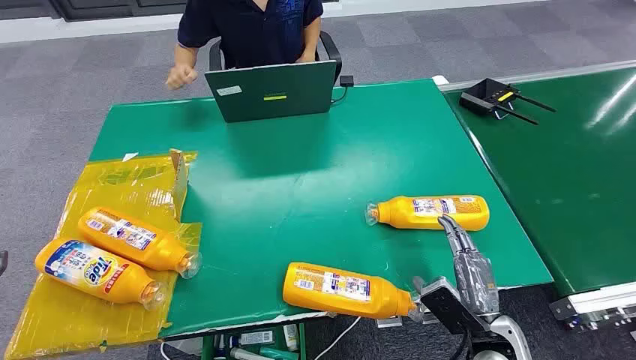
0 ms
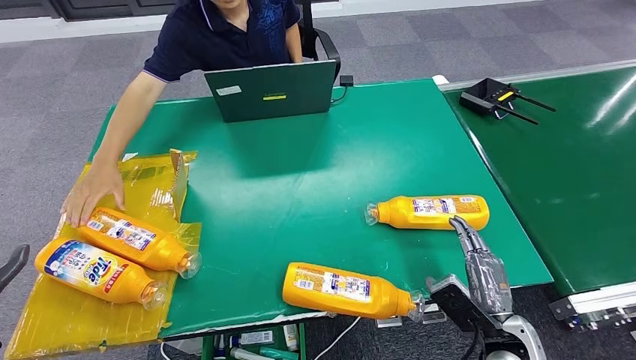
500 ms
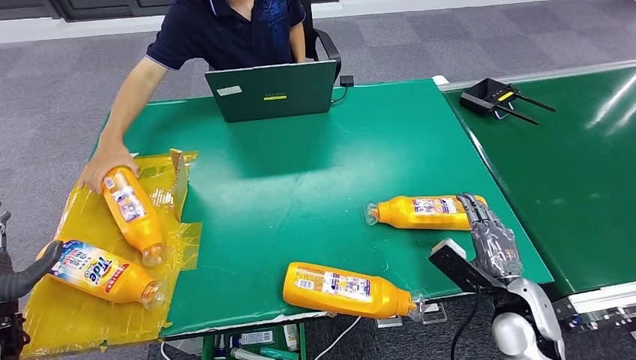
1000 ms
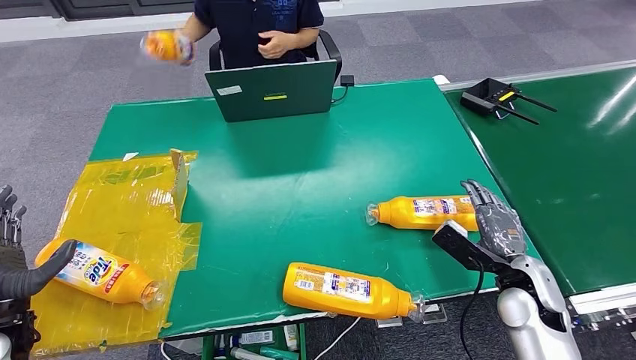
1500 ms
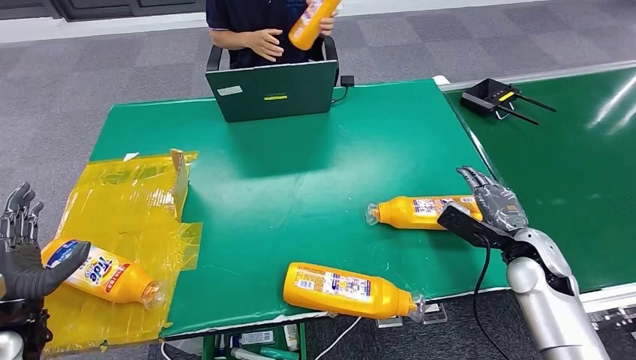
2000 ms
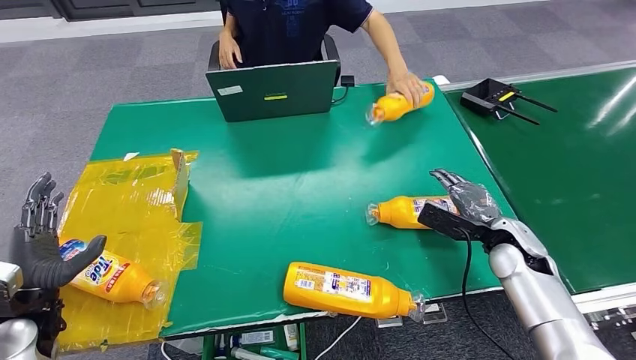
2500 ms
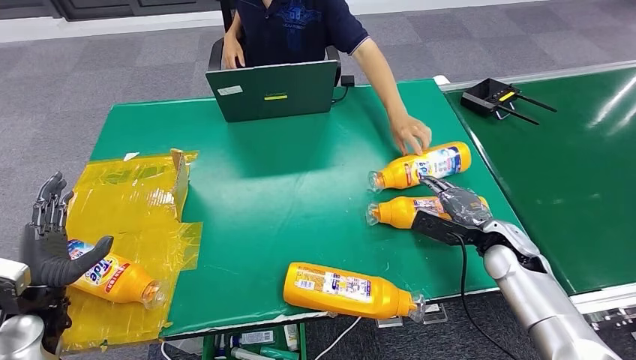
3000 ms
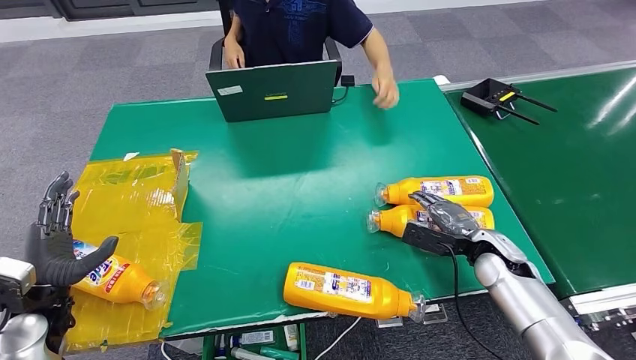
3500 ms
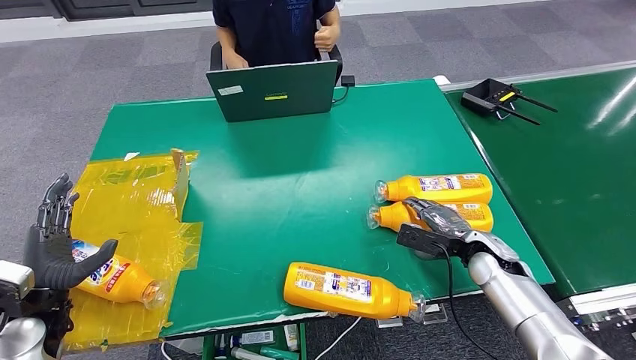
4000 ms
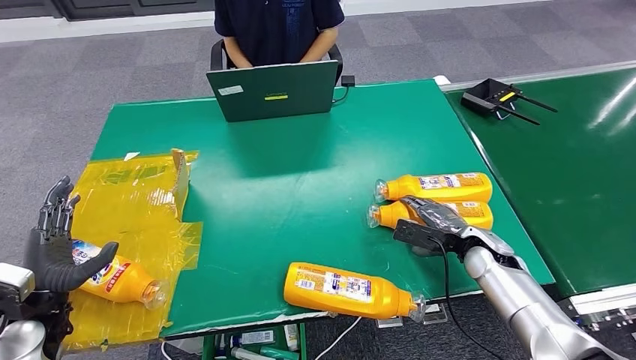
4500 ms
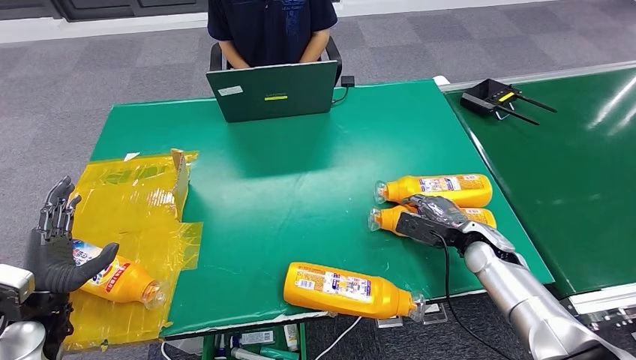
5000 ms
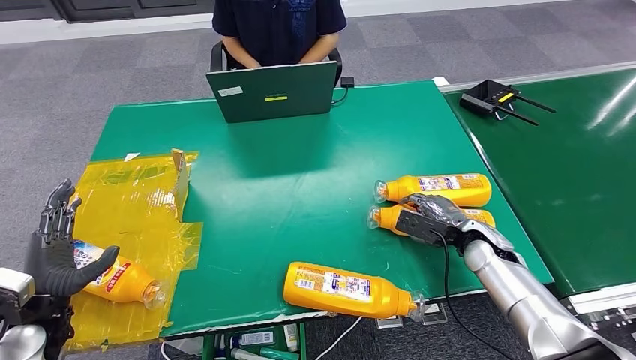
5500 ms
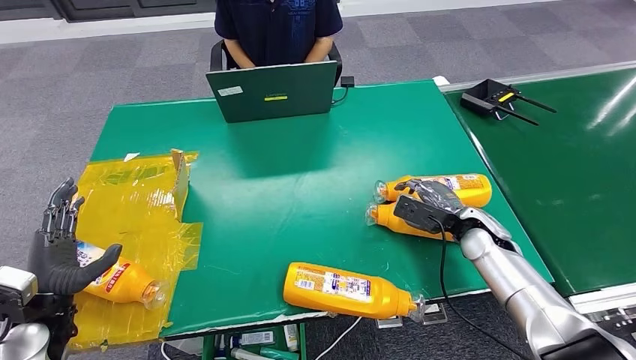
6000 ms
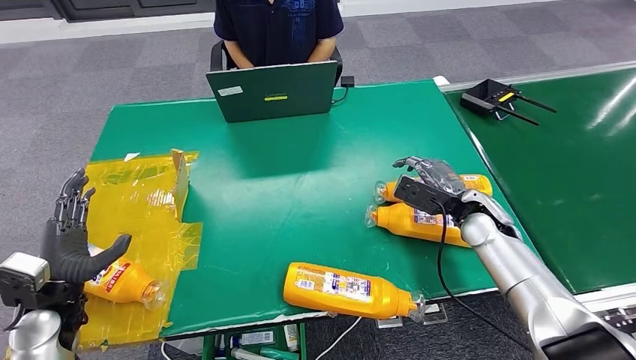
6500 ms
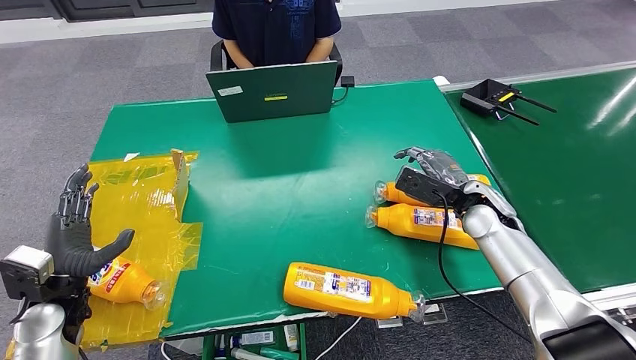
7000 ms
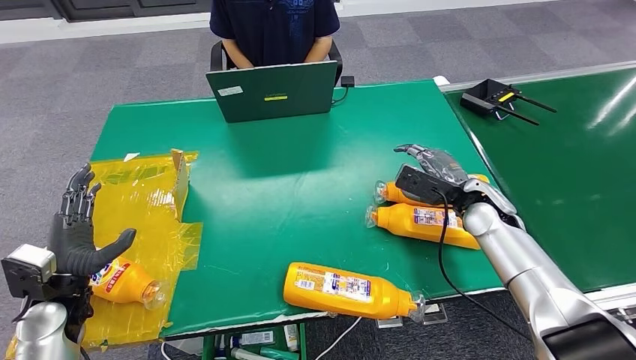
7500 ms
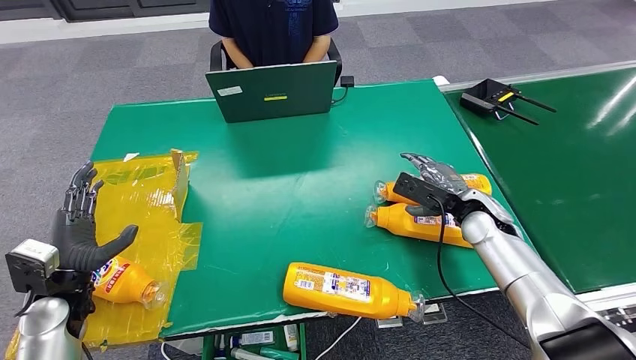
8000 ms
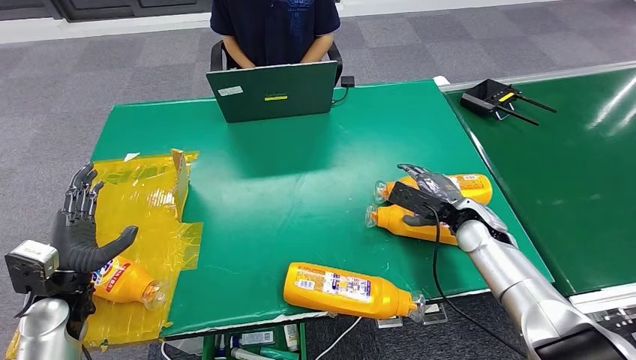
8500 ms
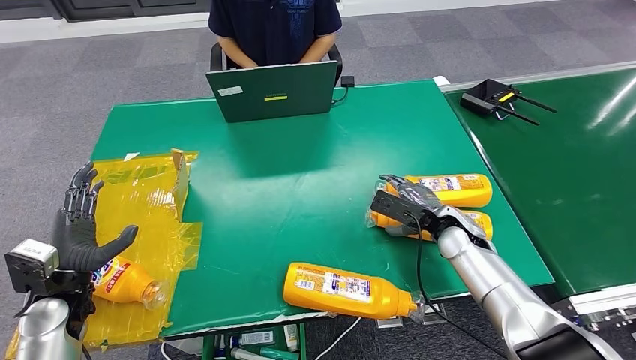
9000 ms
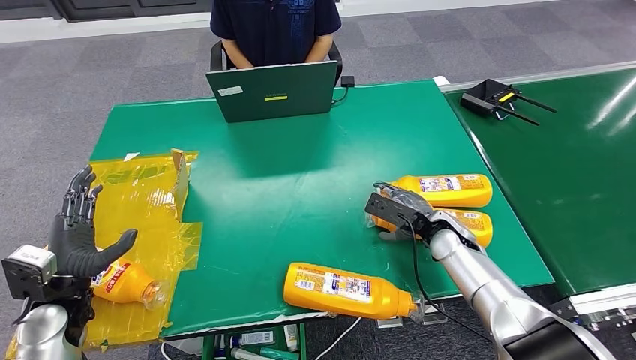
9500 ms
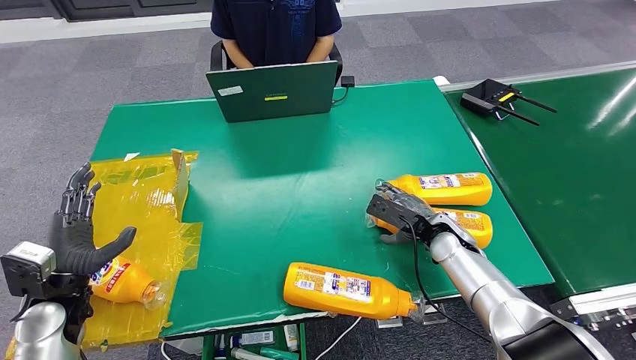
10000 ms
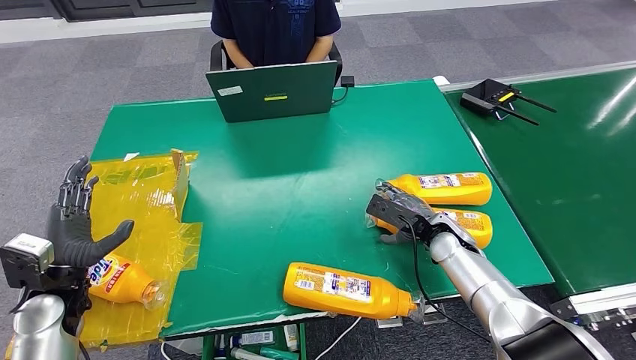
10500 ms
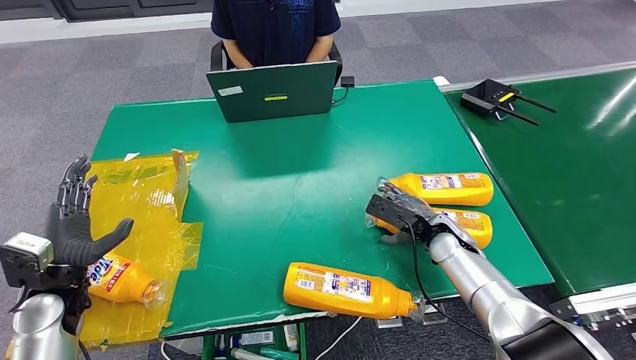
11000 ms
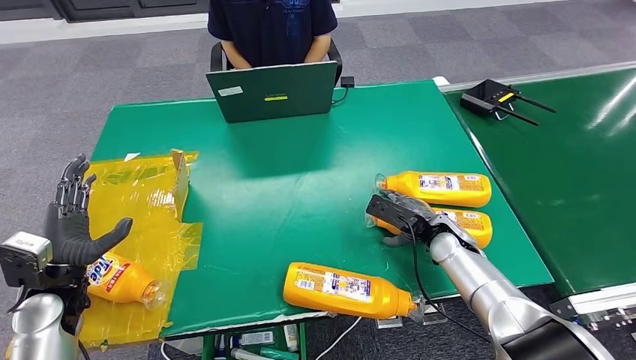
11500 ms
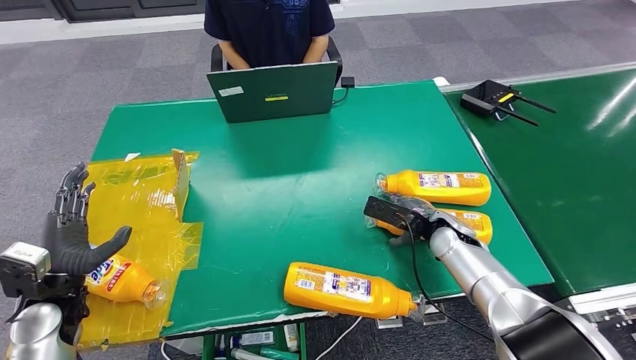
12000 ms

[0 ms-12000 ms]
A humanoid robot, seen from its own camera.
2000 ms to 4000 ms: The right hand is displaced to the left by some 5 cm.
4000 ms to 6000 ms: The hands stay close to where they were, moving slightly.
6000 ms to 8000 ms: The hands stay close to where they were, moving slightly.
8000 ms to 10000 ms: The right hand shifts approximately 10 cm downward and to the left.
10000 ms to 12000 ms: The hands stay close to where they were, moving slightly.

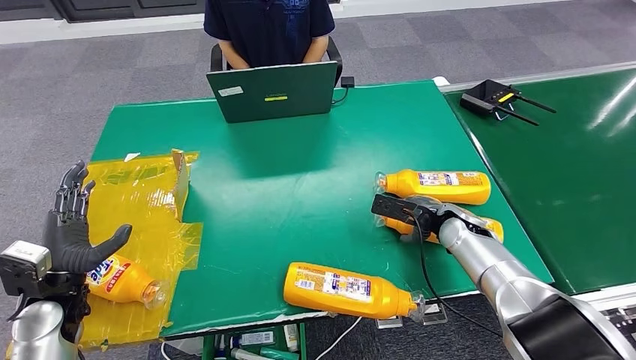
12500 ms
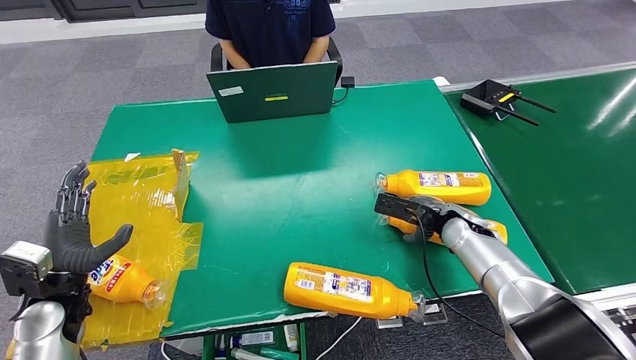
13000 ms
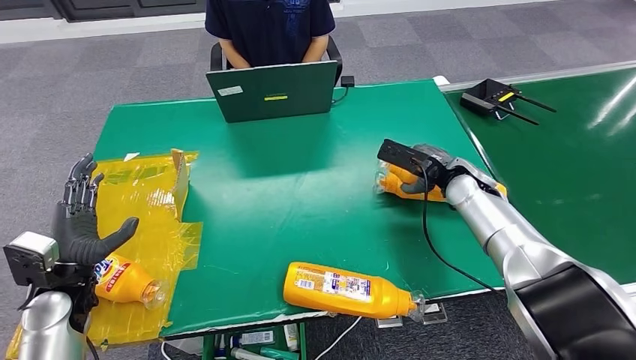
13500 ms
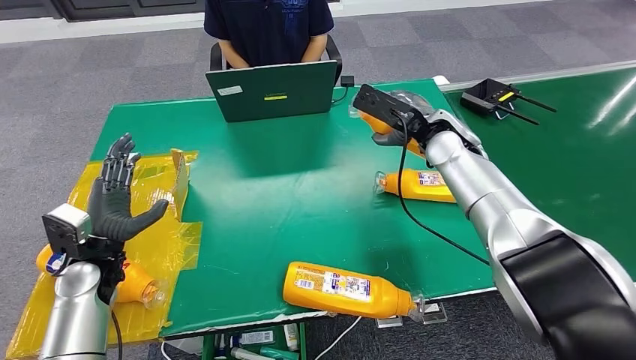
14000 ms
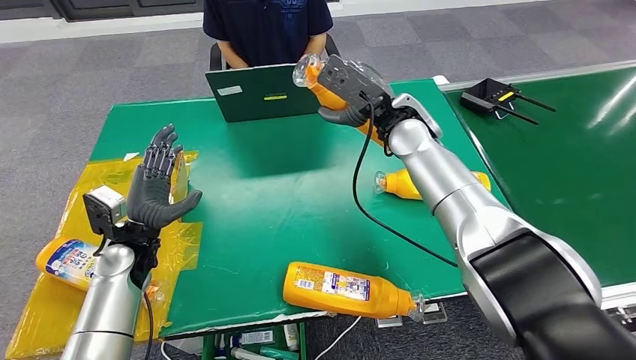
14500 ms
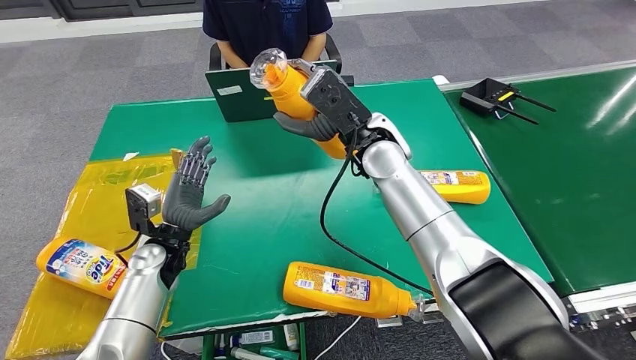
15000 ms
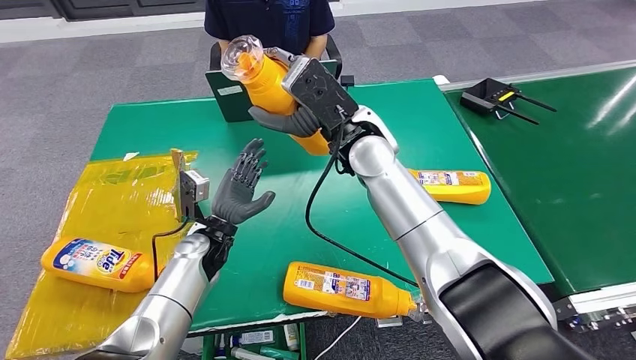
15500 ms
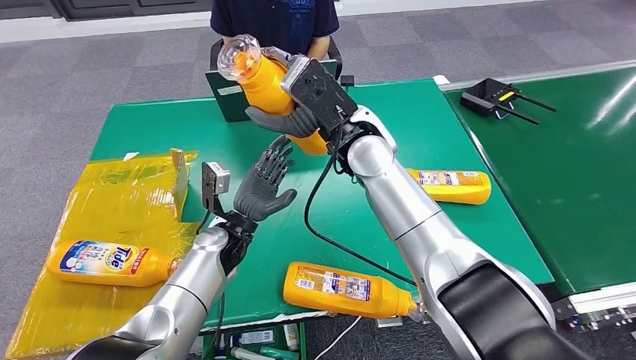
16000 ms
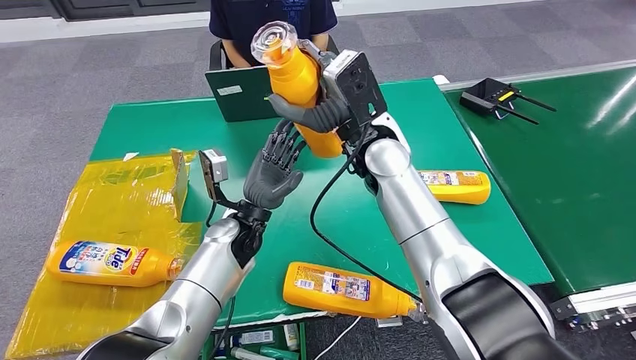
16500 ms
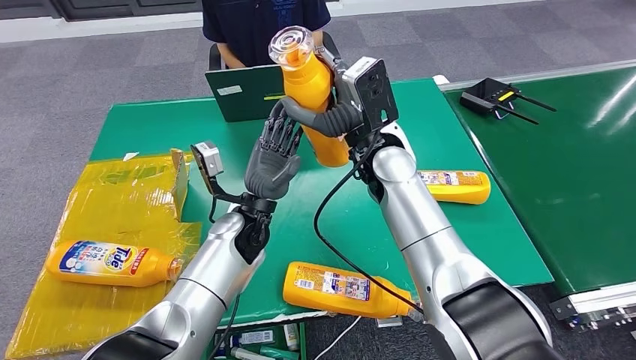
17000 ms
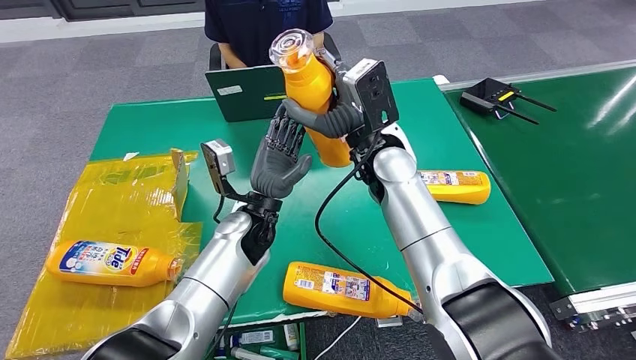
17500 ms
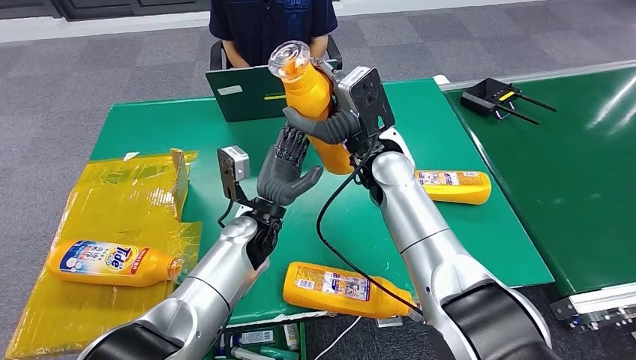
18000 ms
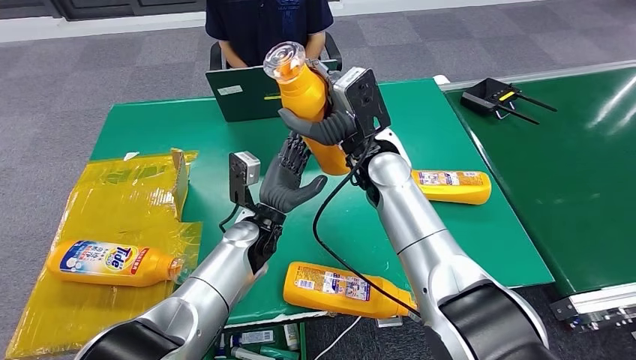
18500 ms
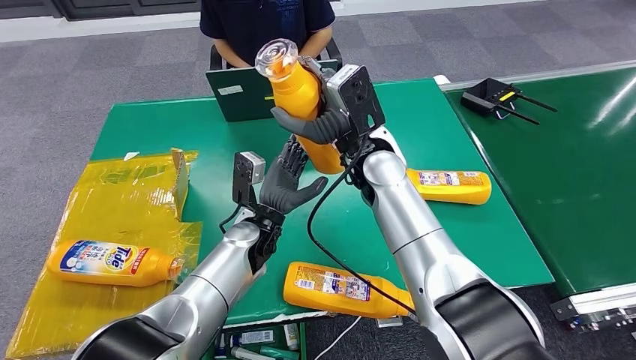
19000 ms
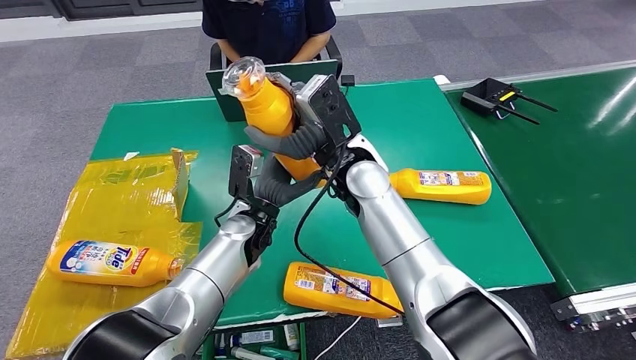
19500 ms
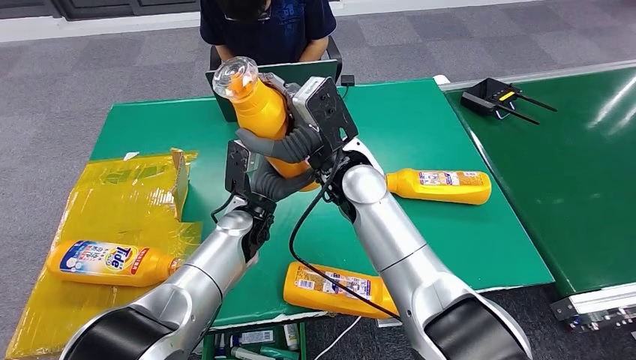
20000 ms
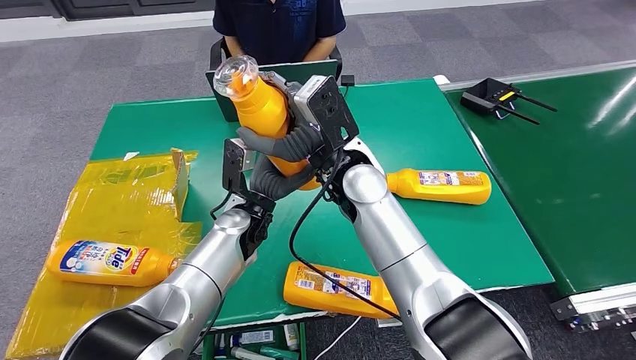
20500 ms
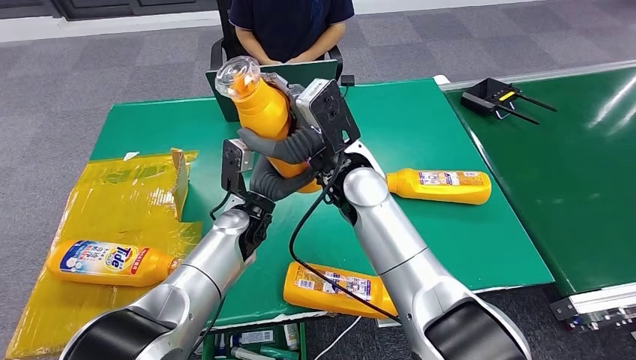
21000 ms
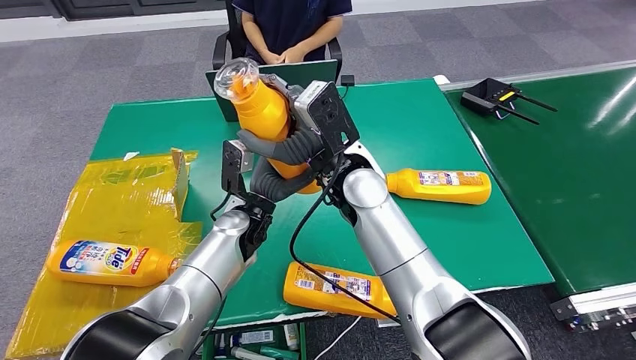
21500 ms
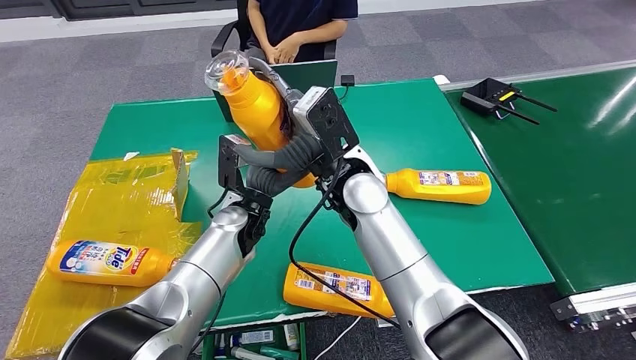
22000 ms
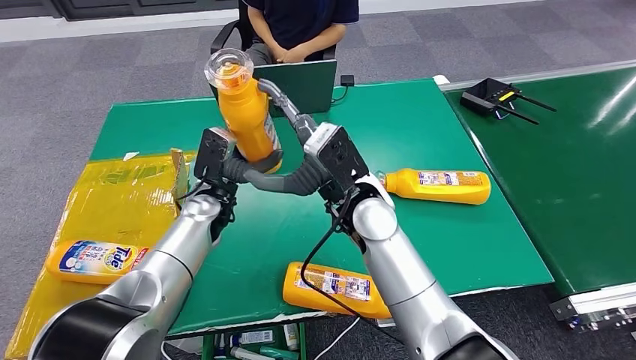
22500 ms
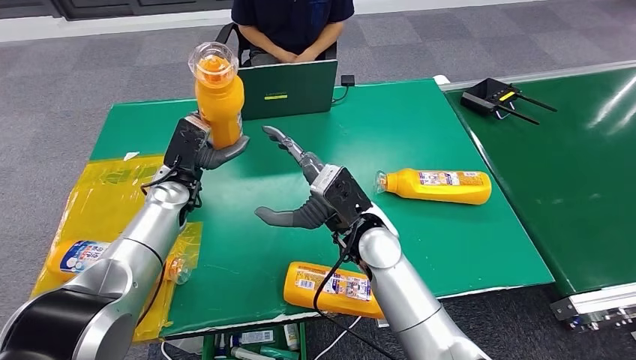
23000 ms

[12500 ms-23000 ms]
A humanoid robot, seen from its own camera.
Step, 12500 ms to 15000 ms: Pick up the bottle from the table.
16500 ms to 19000 ms: There are only small adjustments of the hands.
